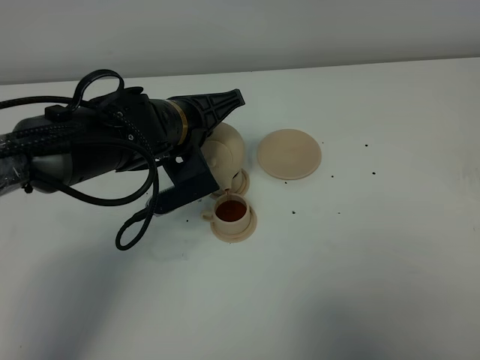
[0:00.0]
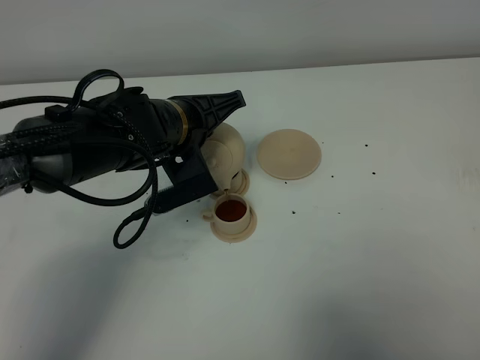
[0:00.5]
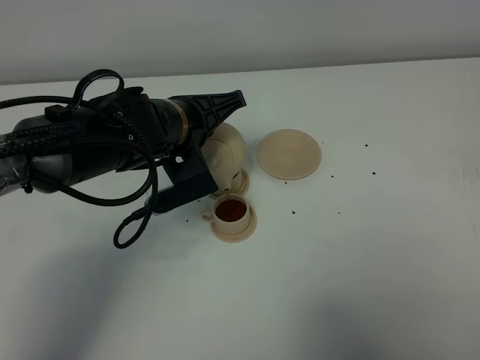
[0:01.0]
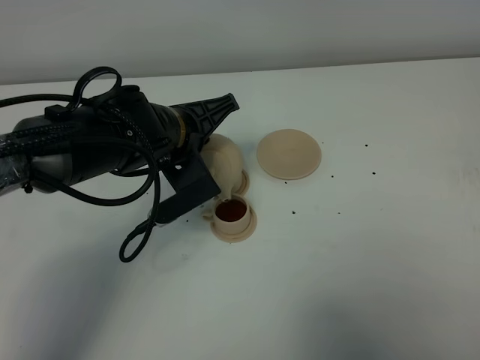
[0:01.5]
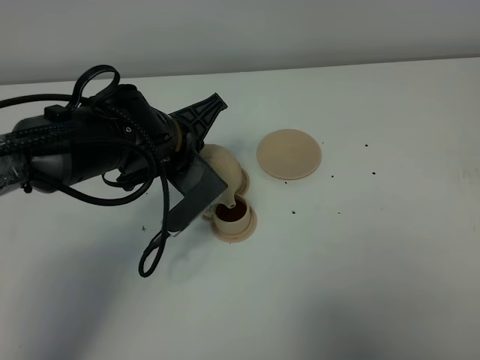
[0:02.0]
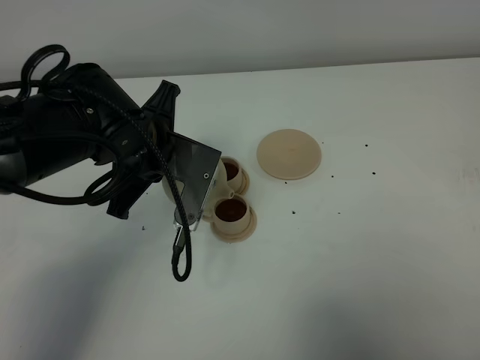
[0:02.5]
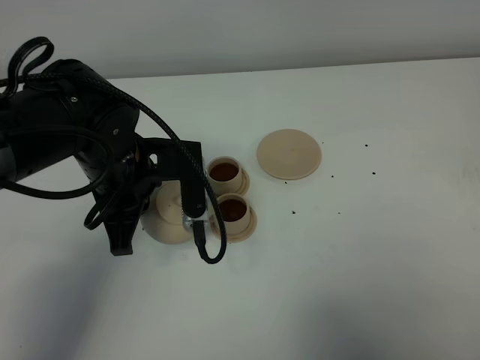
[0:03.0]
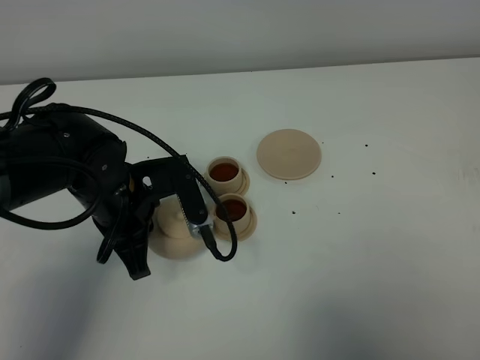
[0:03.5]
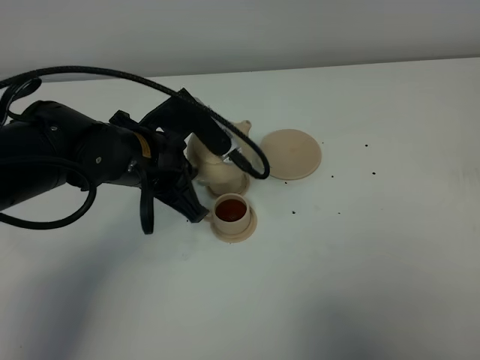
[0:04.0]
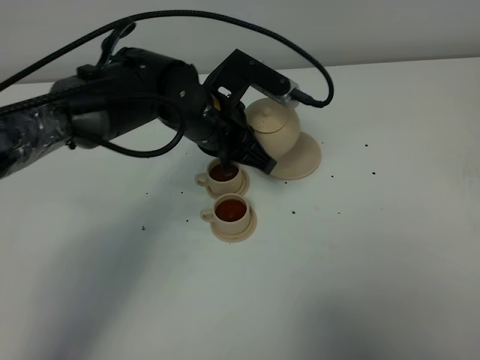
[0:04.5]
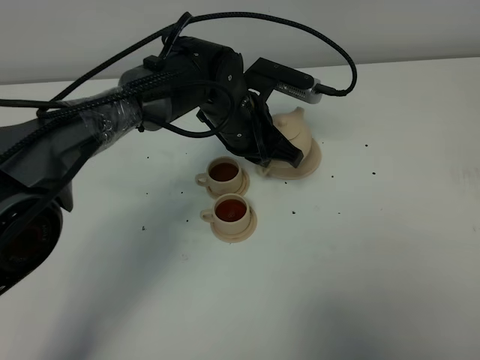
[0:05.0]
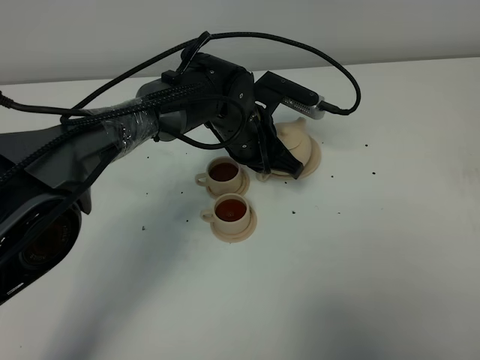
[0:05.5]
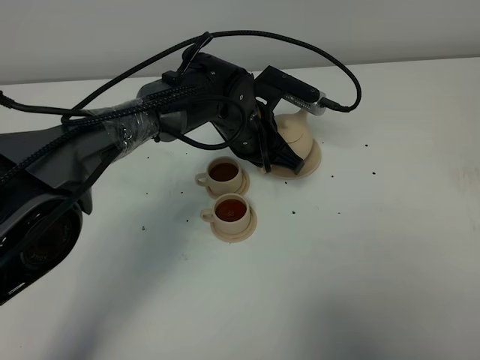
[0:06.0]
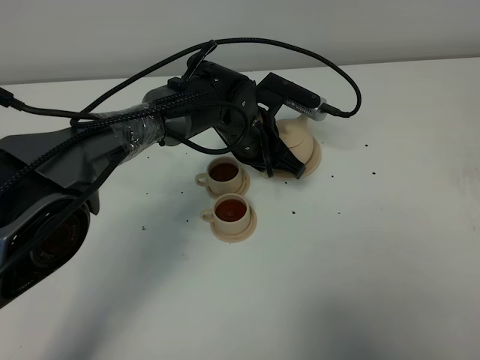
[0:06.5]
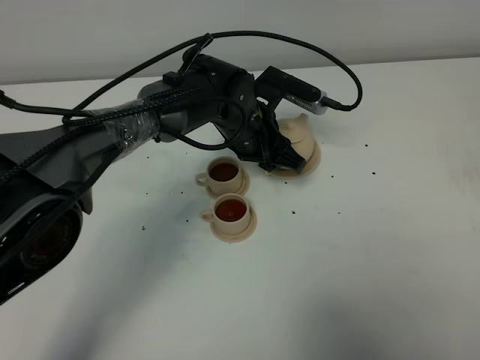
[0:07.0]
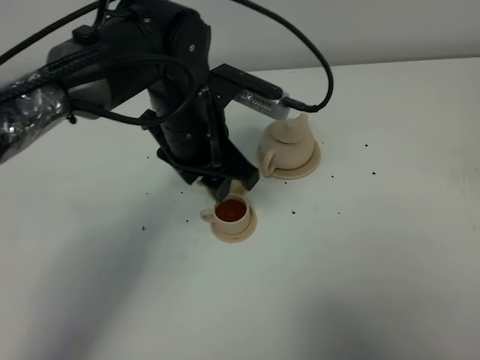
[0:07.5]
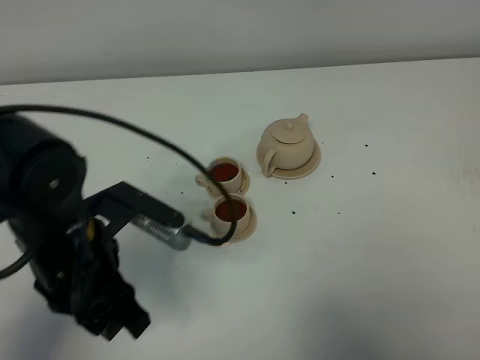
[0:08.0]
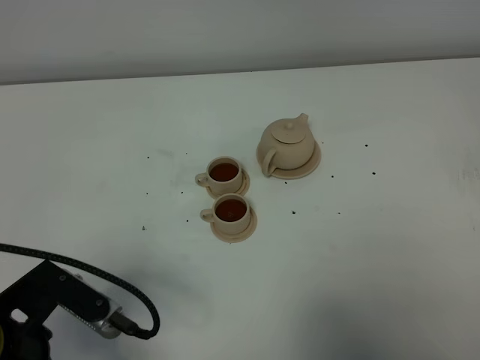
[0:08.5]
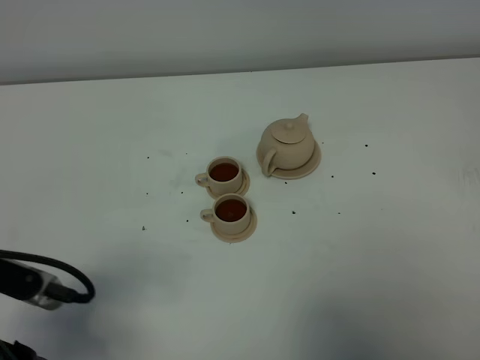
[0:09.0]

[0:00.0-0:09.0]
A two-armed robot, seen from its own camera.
Task of the whole recording: grasp the brown teapot and pour the tea into the two brown teacups one by one, put the brown teapot back in its original place.
Step, 0:00.0 to 0:02.0: Pour tea into the teacup with the left gripper.
0:02.0 to 0:04.5: The left gripper ends up approximately 5 cm from where it was.
0:04.5 to 0:07.0: The left gripper moves some 5 cm, and opens.
0:07.0 to 0:09.0: The left gripper travels backward and to the left by approximately 40 cm.

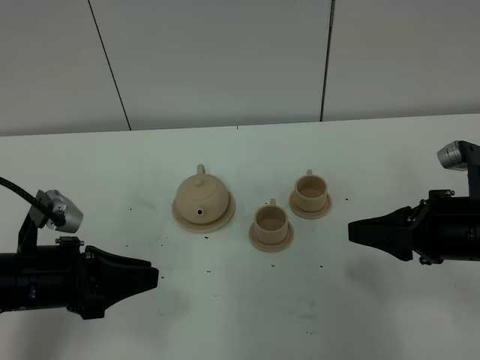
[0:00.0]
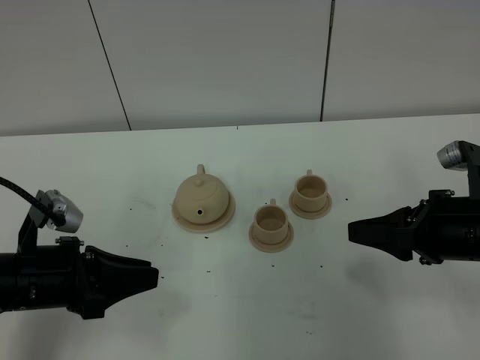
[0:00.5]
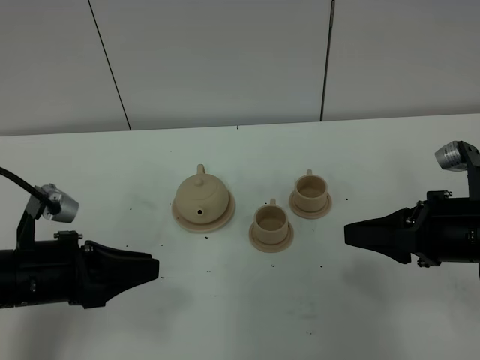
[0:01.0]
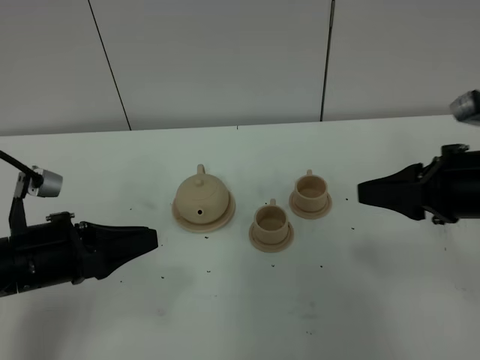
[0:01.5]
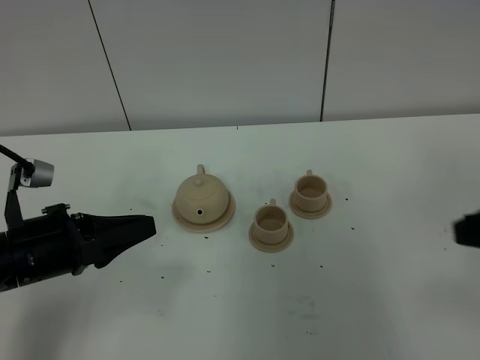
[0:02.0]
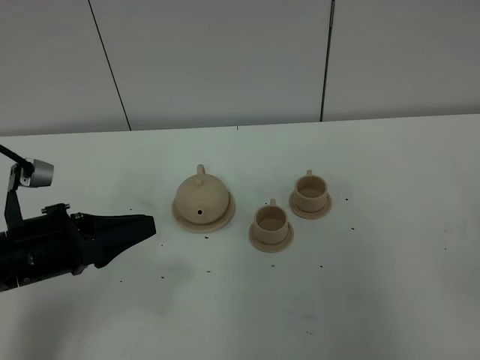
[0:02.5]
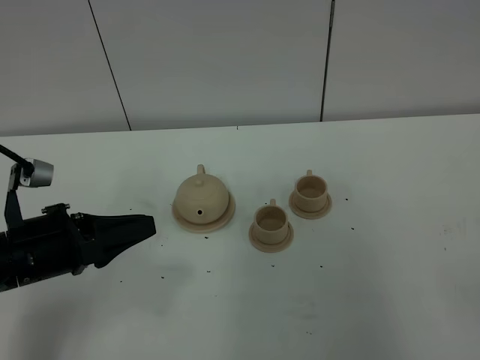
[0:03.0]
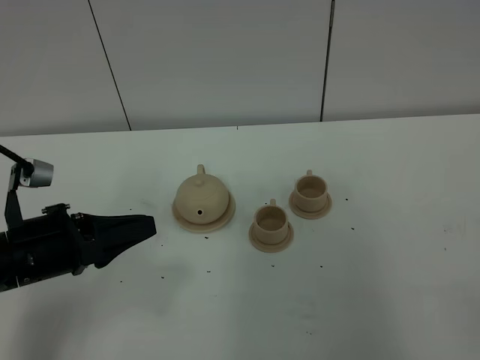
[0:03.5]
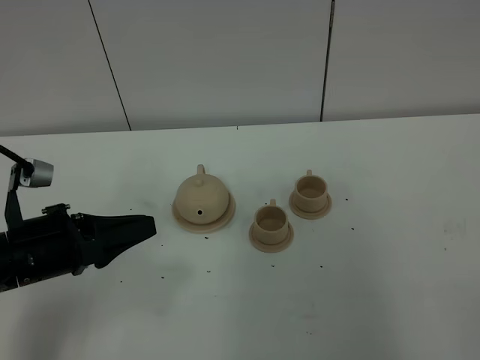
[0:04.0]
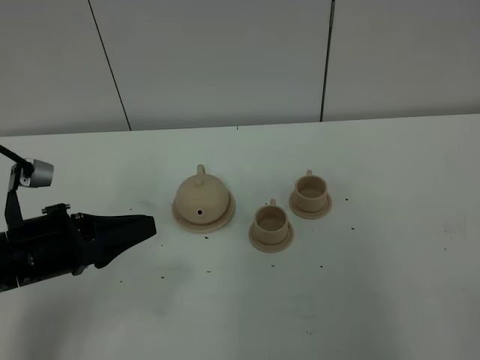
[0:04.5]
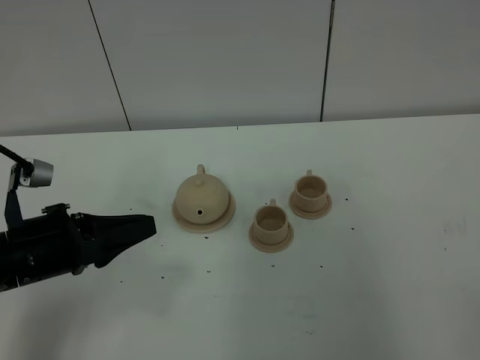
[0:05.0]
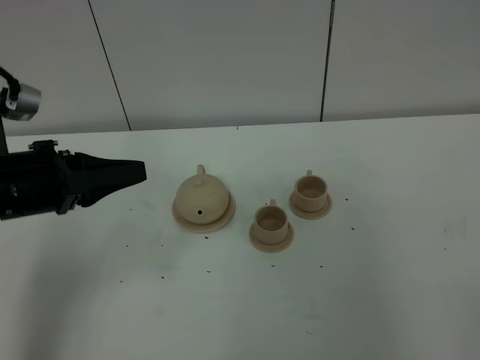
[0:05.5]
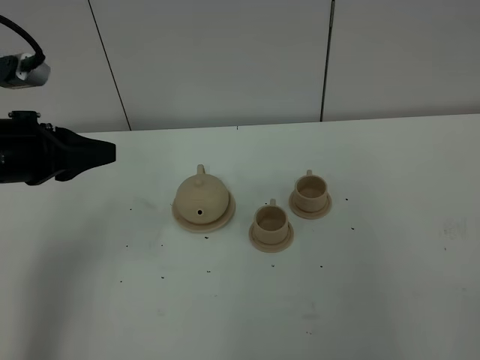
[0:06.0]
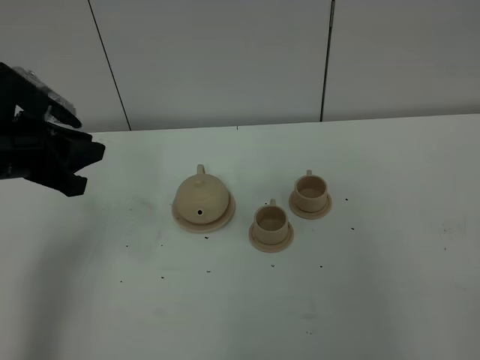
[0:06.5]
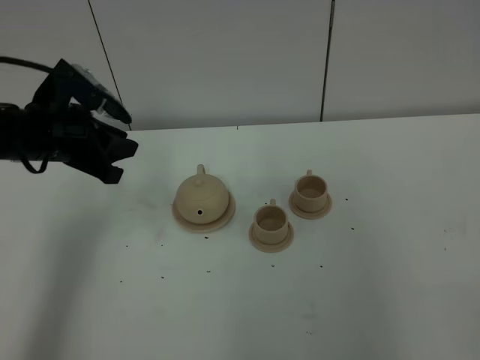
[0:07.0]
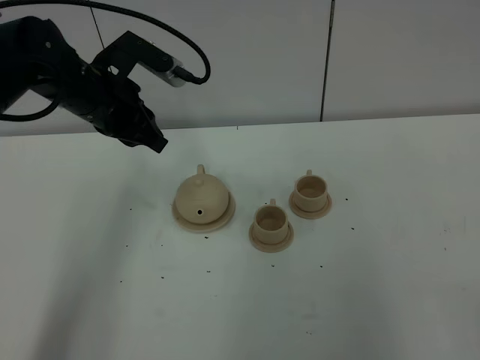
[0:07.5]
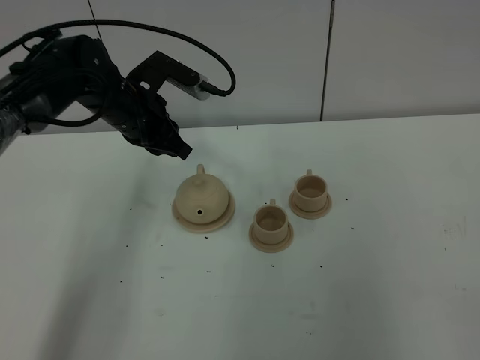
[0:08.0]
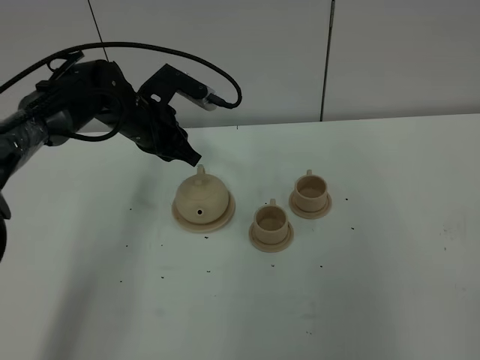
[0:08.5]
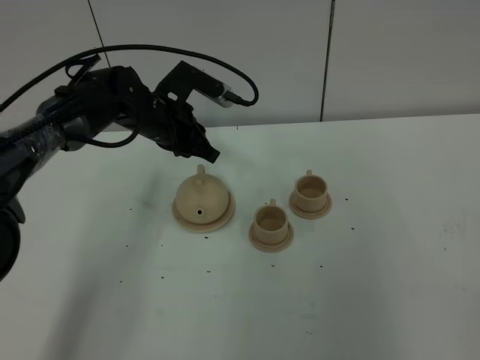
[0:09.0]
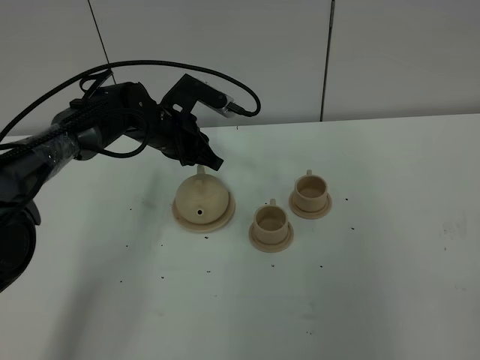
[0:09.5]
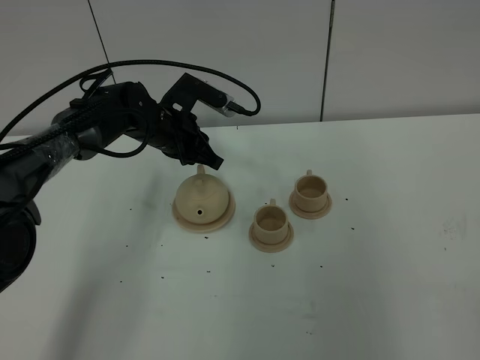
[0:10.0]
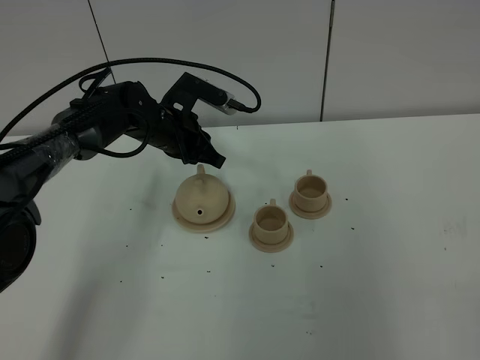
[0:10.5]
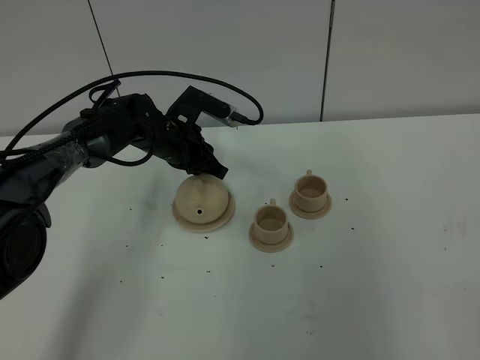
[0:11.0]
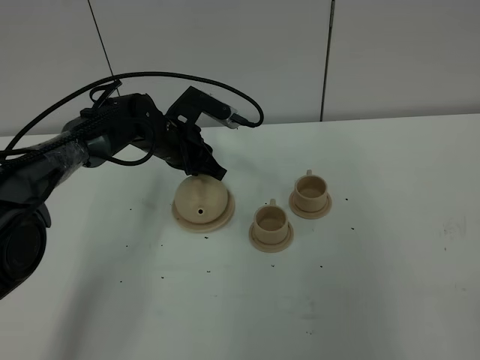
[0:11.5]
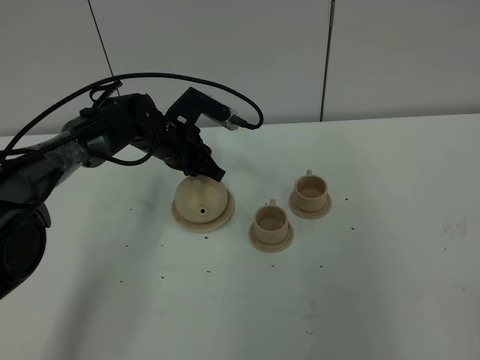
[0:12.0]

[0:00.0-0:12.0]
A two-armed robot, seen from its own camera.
Task of the whole recording: grasp the brown teapot and pour the tea into the two brown teacups one by one, put the brown teapot back in its original place.
0:00.0 to 0:02.0: The right gripper travels upward and backward by roughly 15 cm, and closes up.
0:04.0 to 0:06.0: The left gripper moves upward and forward, some 10 cm.
0:06.0 to 0:08.0: The left gripper moves forward and to the right, approximately 20 cm.
0:08.0 to 0:10.0: The left gripper is displaced downward by approximately 5 cm.
0:10.0 to 0:12.0: The grippers make only small movements.

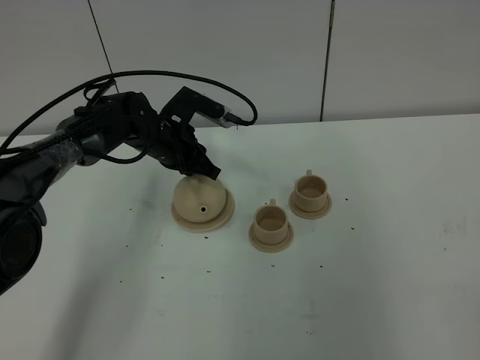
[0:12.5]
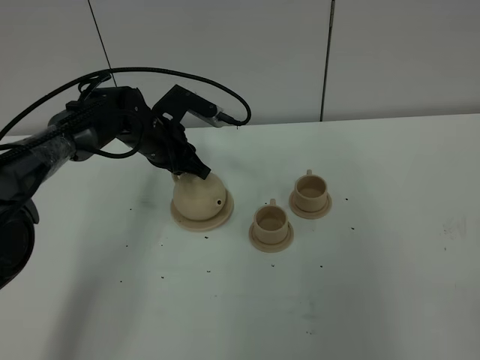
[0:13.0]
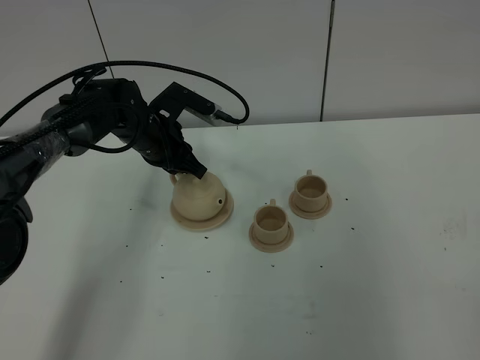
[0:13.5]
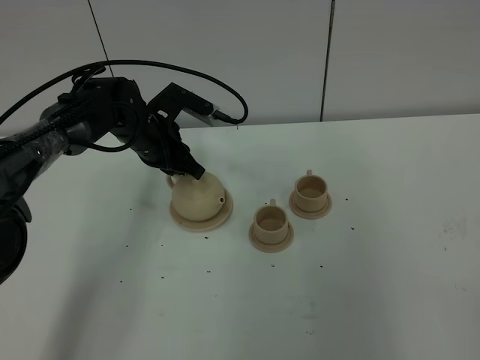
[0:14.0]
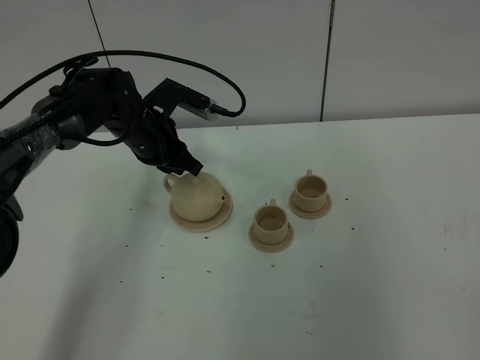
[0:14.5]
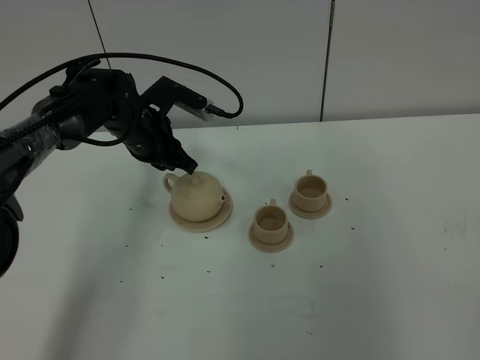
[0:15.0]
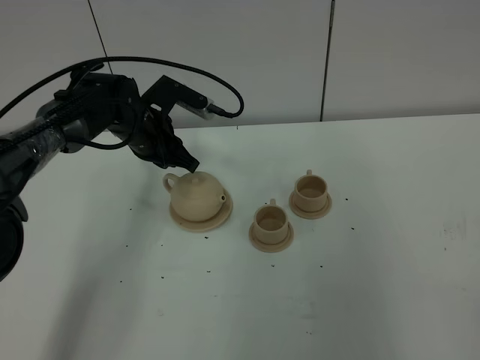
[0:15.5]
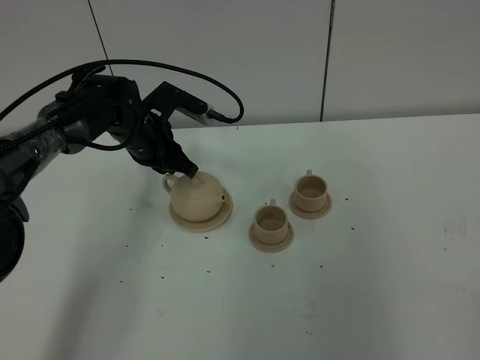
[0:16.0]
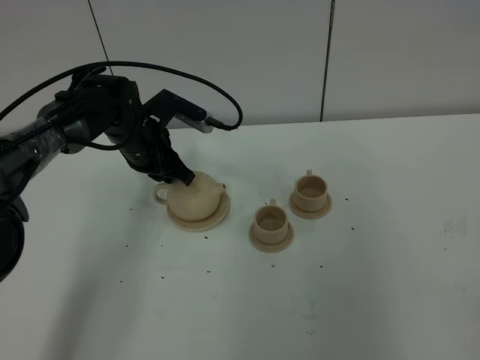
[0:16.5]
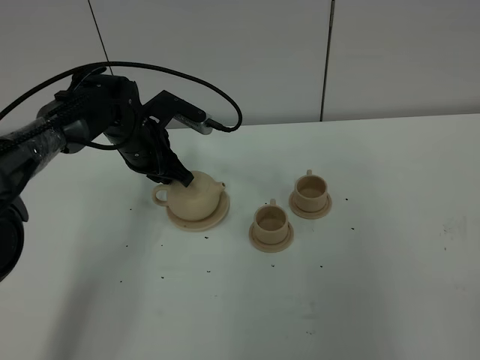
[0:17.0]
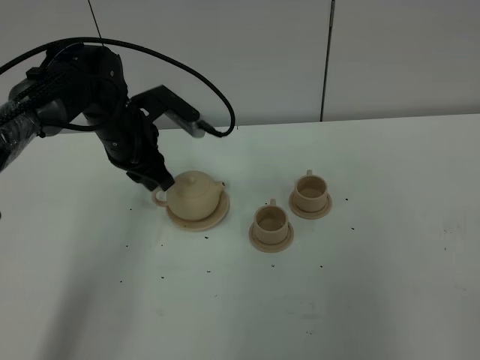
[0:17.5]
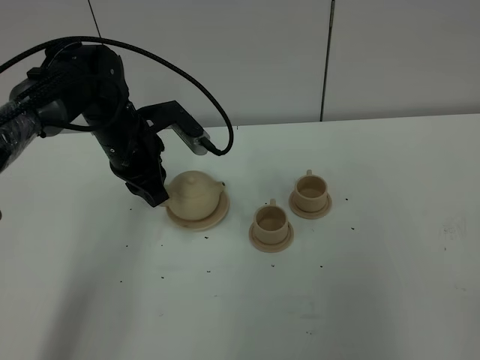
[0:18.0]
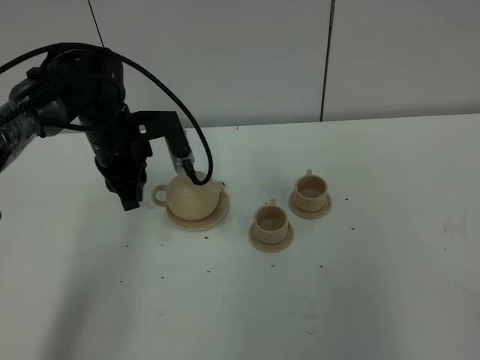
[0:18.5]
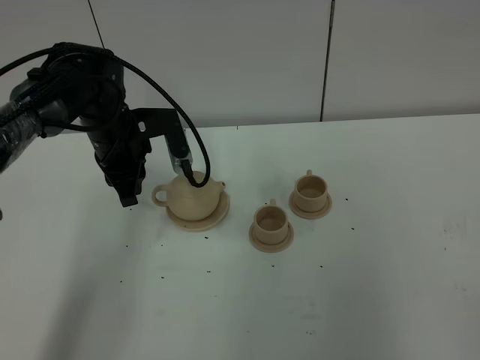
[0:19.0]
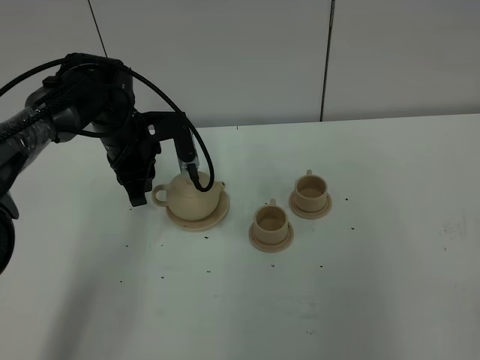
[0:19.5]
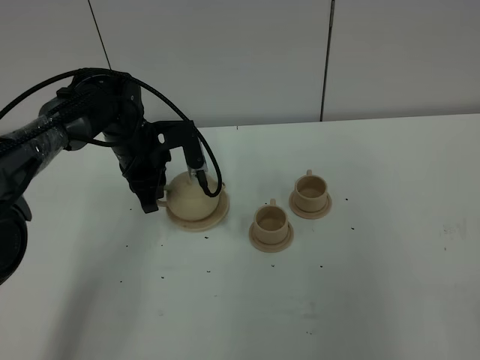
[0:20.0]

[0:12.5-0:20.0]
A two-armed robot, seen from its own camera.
Task of the whole recording: grasp the brown teapot and pour the tea into the two brown teacups one by one, put the brown teapot back in its original place.
0:12.5 to 0:16.5: The grippers make only small movements.
0:16.5 to 0:18.0: The left gripper moves roughly 5 cm.
